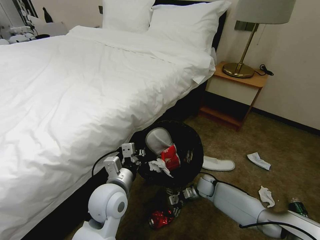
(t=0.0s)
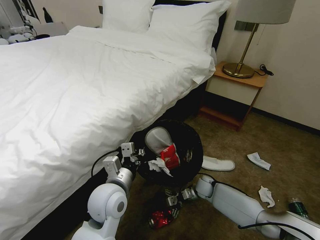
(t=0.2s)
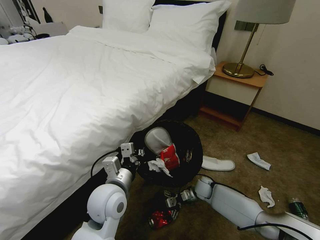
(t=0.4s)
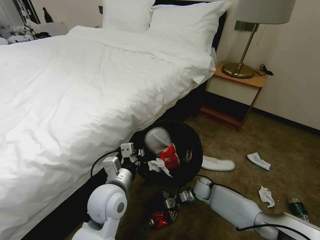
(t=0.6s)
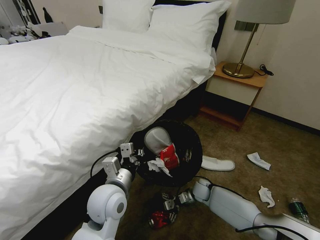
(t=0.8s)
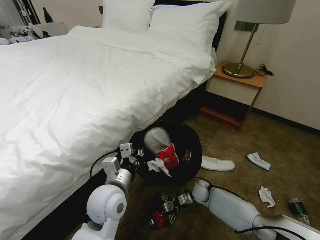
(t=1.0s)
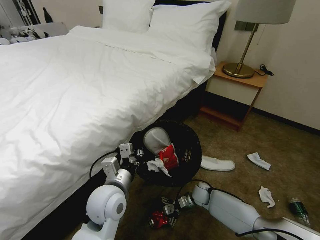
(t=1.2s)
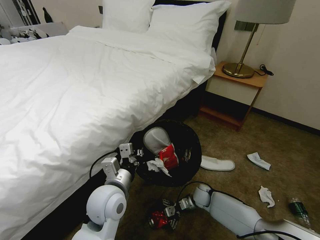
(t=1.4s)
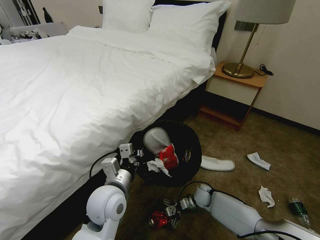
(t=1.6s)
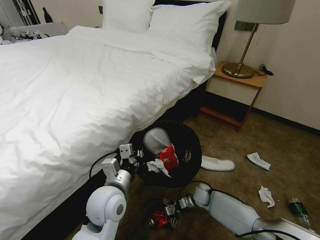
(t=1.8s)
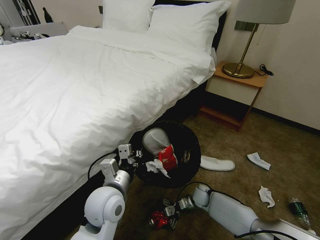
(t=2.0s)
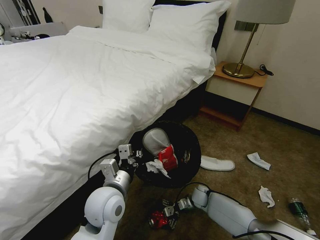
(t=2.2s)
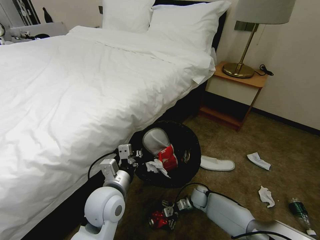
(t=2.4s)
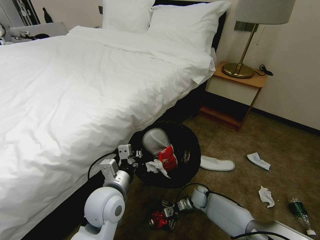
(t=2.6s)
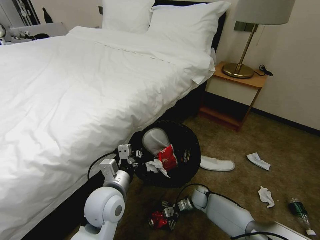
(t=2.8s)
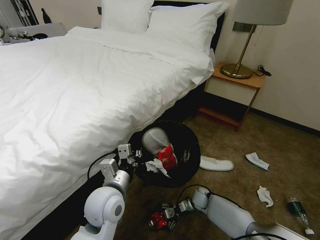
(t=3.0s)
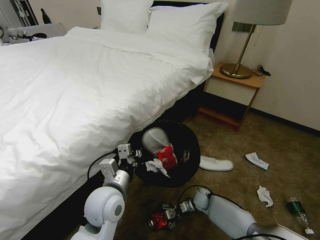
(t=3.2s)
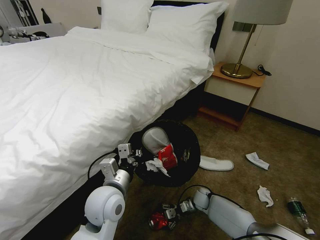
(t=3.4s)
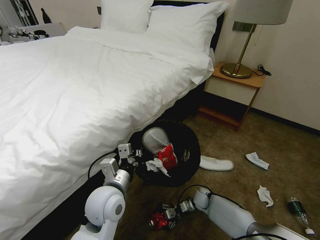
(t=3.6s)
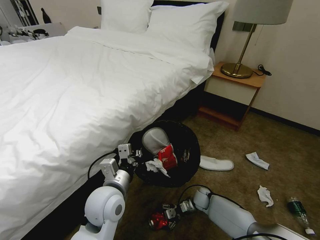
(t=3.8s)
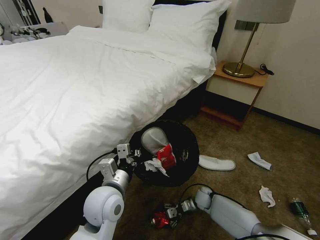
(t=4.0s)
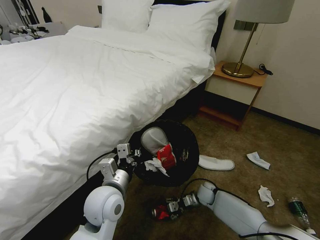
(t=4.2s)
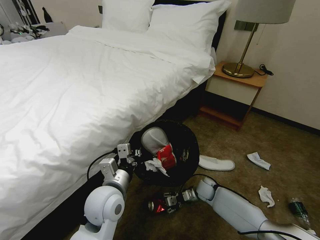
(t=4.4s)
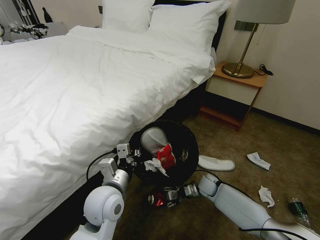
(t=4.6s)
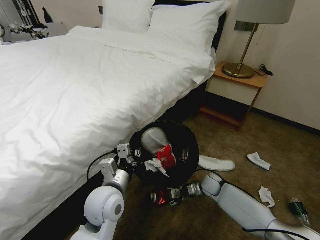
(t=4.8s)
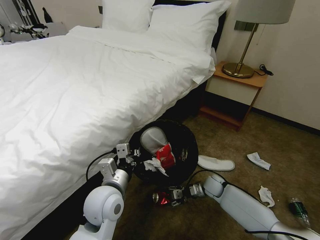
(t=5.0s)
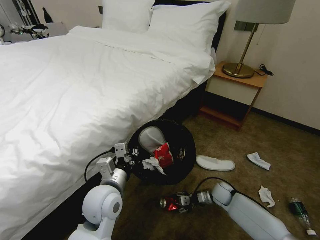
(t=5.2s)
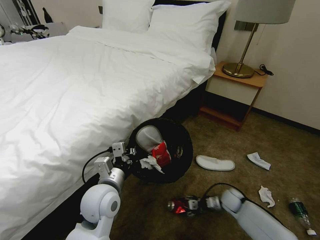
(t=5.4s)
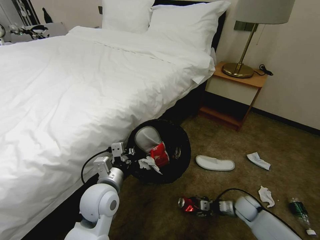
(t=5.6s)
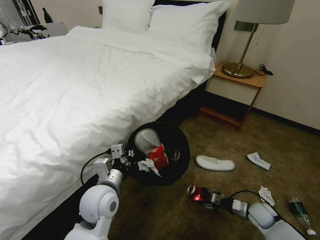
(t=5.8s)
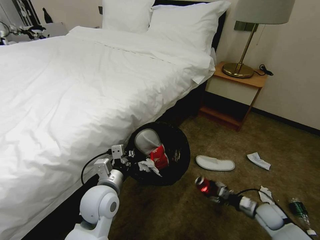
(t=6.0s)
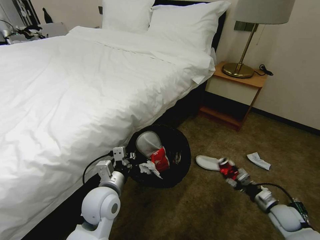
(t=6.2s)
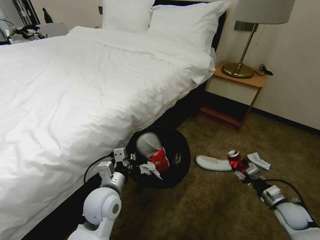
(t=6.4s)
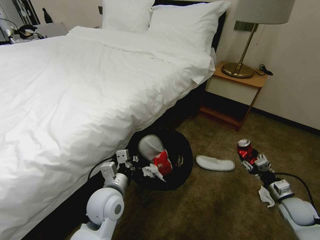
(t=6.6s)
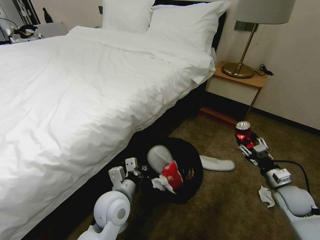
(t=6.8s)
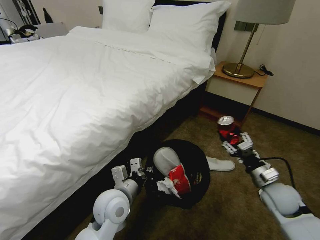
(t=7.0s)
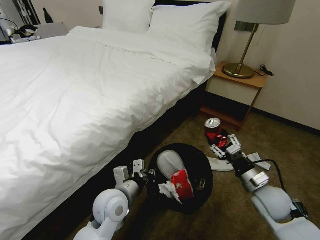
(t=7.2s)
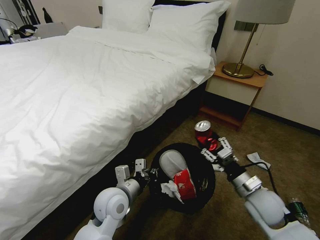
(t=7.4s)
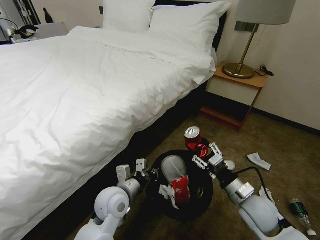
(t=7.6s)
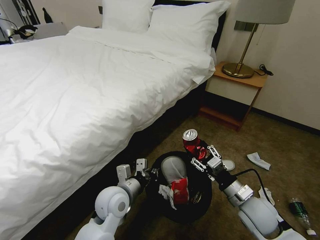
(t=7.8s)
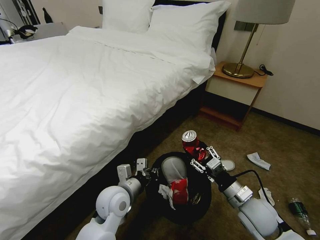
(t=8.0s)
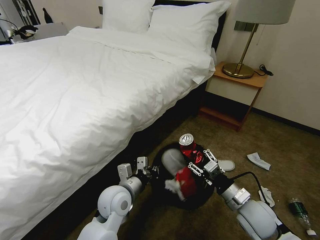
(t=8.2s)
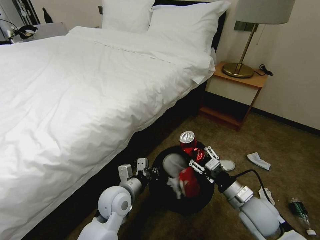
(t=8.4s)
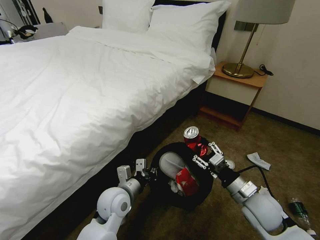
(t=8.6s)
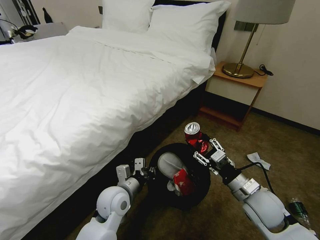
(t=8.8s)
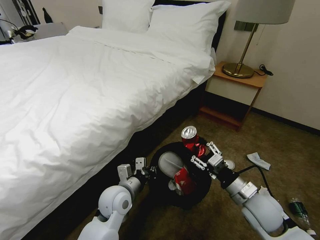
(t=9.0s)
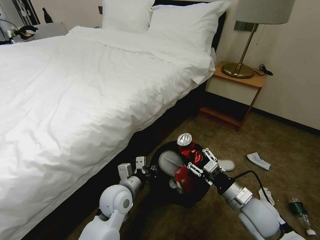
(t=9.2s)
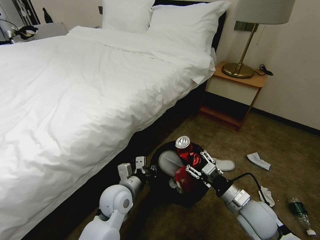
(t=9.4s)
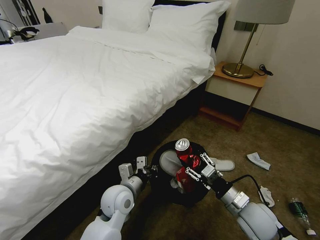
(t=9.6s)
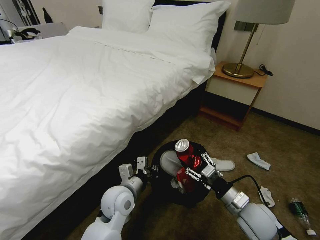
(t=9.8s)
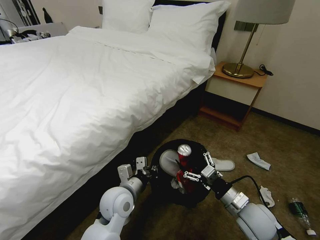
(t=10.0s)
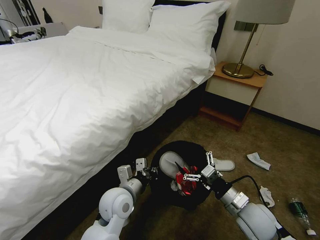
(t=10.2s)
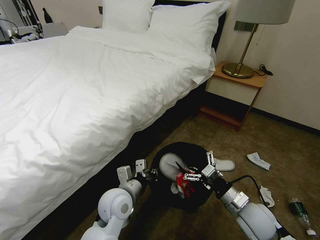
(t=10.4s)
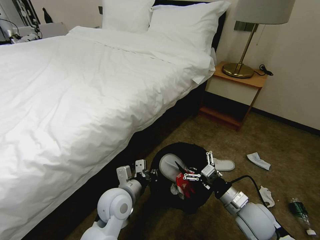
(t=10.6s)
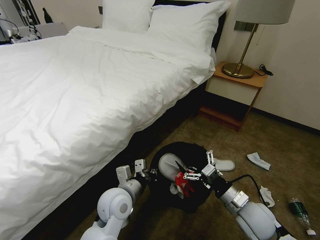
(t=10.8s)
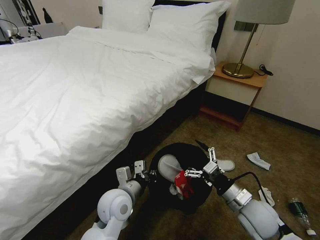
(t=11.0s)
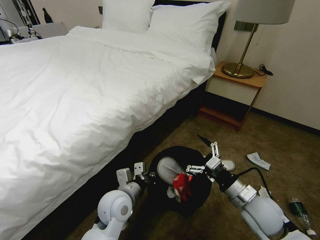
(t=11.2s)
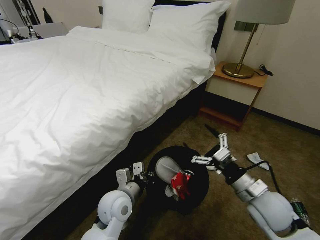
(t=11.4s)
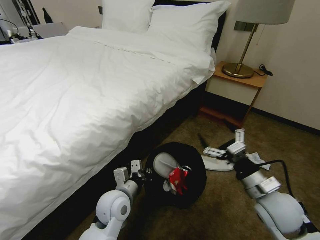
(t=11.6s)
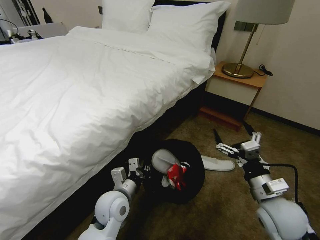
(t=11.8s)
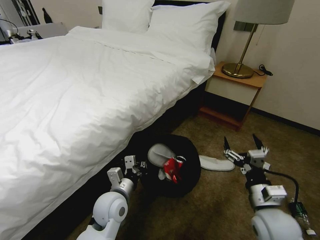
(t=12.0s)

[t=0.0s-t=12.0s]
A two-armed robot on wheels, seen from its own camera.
Task of the whole recording: Pick up the trash bin, then pick up the garbage on the floor and place it into the trash bin.
t=0.0s to t=1.6s: The grippers make only small movements.
t=1.6s to t=3.0s: The grippers make only small movements.
t=3.0s to t=4.4s: The right gripper moves upward, roughly 5 cm.
t=4.4s to t=6.0s: The right gripper is displaced to the right and backward by approximately 25 cm.
t=6.0s to t=7.6s: The right gripper goes approximately 20 cm upward and to the left.
t=7.6s to t=9.0s: The grippers move only a little.
t=9.0s to t=10.4s: The right gripper opens its fingers.

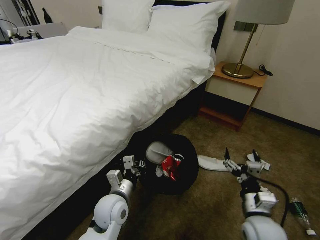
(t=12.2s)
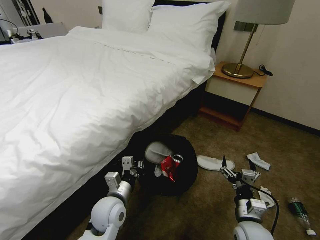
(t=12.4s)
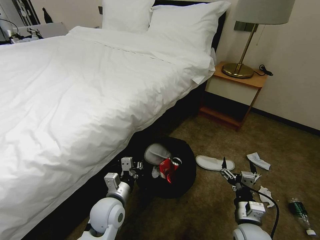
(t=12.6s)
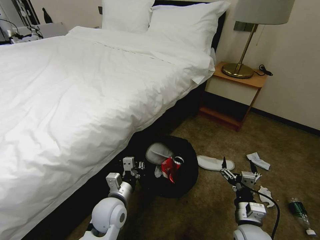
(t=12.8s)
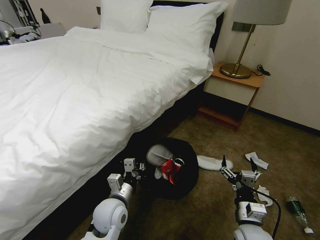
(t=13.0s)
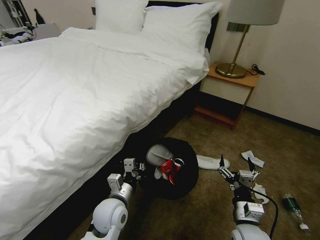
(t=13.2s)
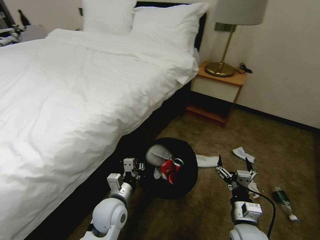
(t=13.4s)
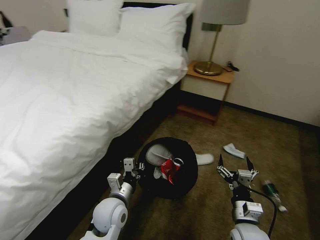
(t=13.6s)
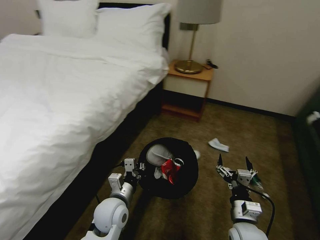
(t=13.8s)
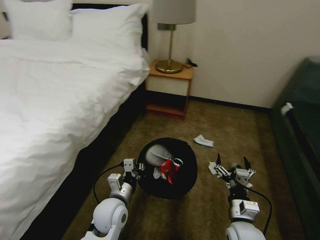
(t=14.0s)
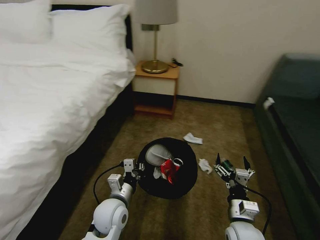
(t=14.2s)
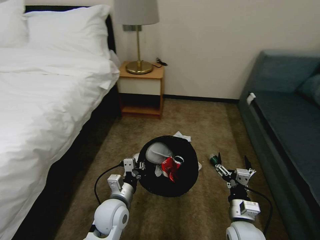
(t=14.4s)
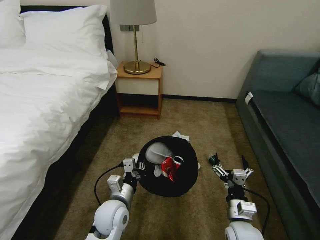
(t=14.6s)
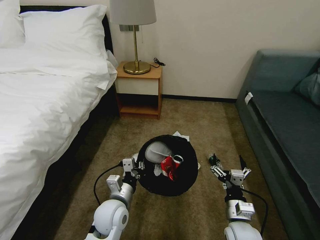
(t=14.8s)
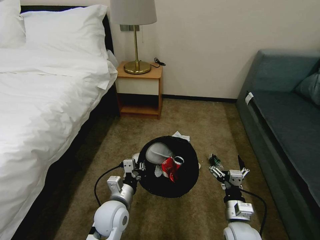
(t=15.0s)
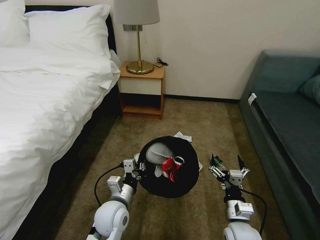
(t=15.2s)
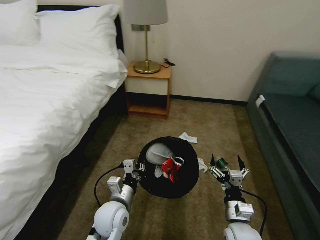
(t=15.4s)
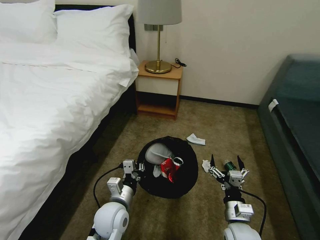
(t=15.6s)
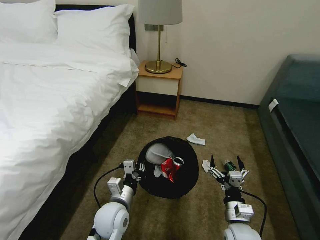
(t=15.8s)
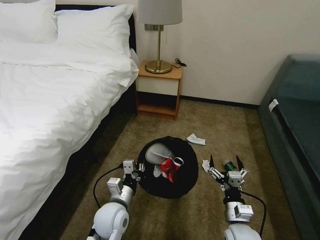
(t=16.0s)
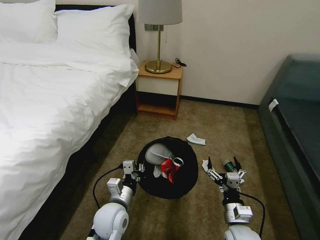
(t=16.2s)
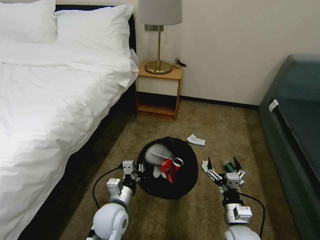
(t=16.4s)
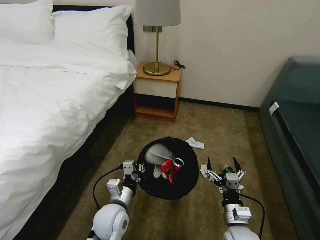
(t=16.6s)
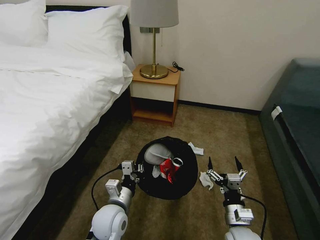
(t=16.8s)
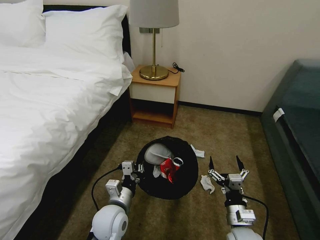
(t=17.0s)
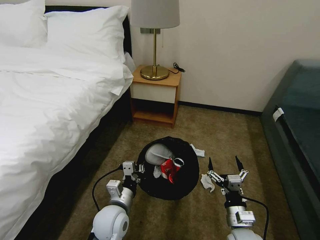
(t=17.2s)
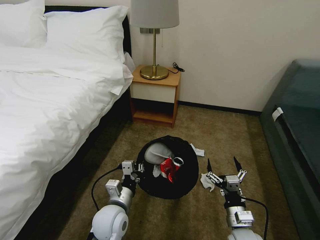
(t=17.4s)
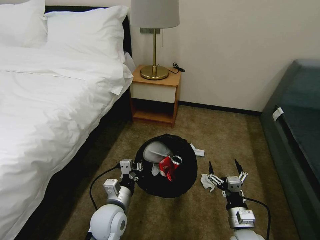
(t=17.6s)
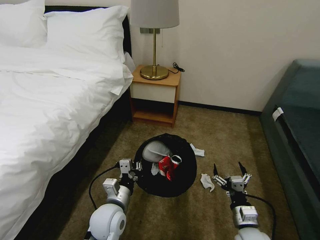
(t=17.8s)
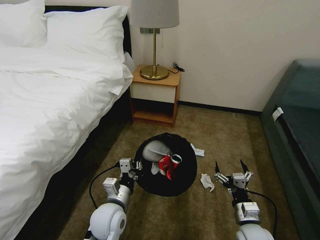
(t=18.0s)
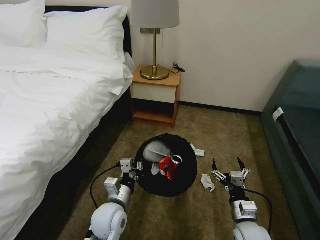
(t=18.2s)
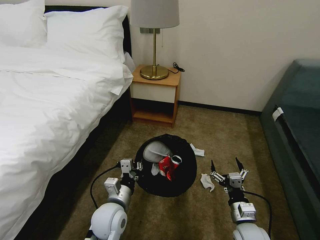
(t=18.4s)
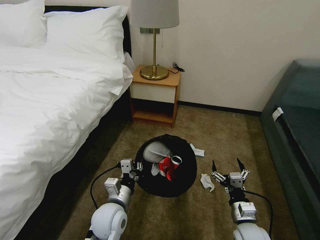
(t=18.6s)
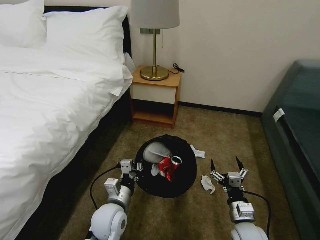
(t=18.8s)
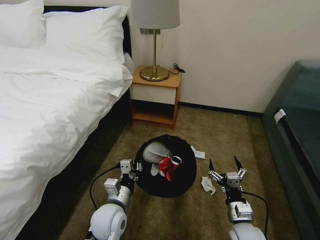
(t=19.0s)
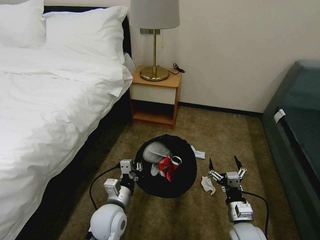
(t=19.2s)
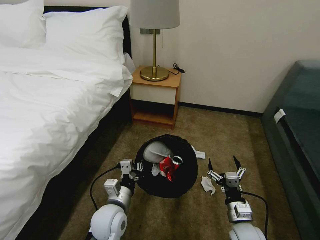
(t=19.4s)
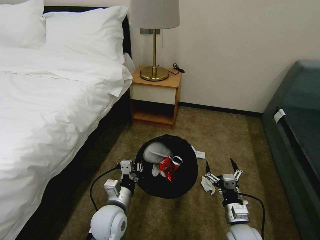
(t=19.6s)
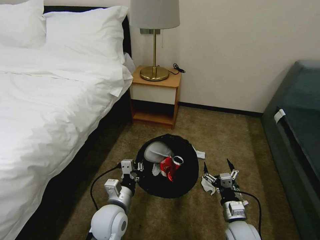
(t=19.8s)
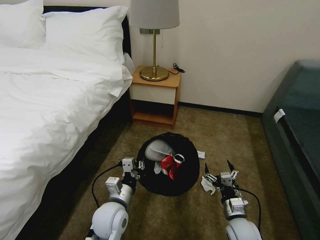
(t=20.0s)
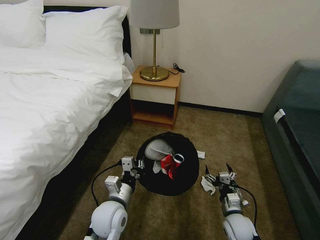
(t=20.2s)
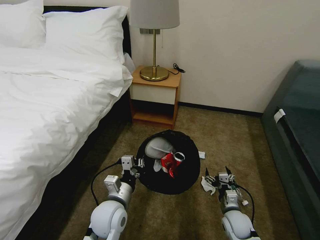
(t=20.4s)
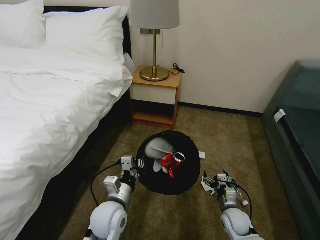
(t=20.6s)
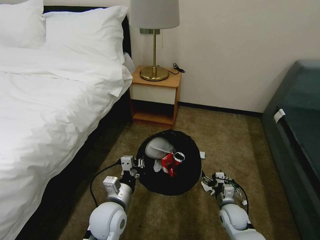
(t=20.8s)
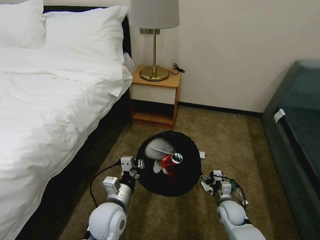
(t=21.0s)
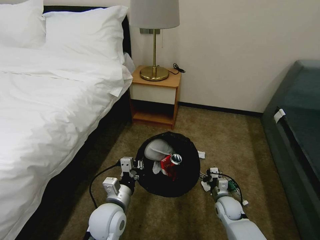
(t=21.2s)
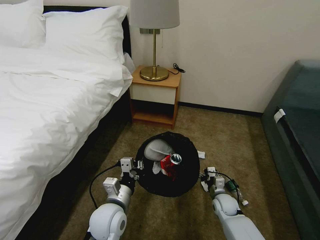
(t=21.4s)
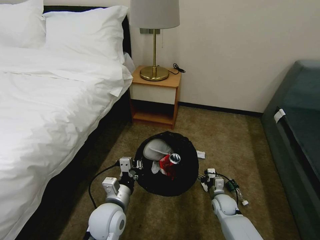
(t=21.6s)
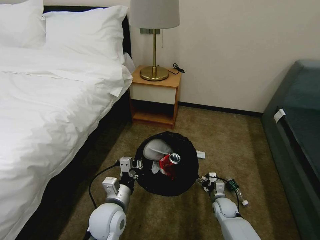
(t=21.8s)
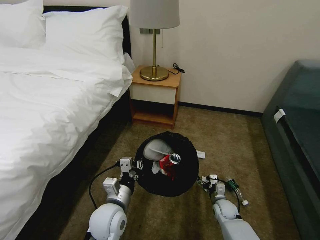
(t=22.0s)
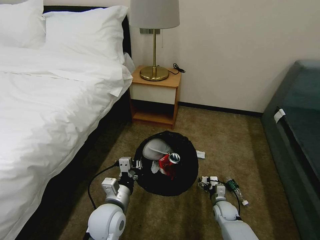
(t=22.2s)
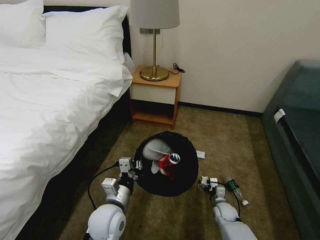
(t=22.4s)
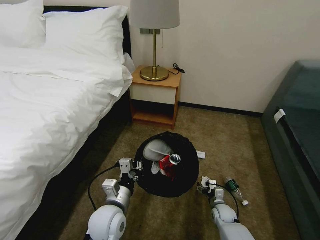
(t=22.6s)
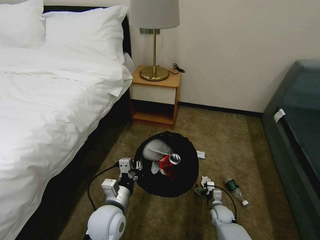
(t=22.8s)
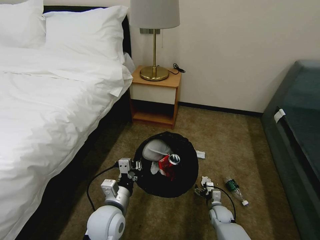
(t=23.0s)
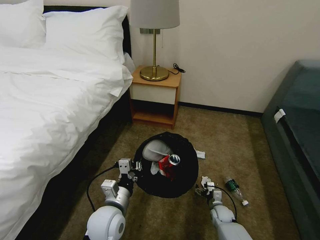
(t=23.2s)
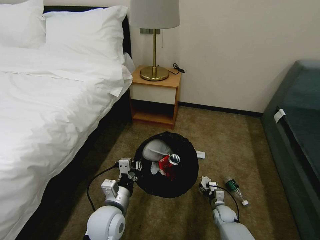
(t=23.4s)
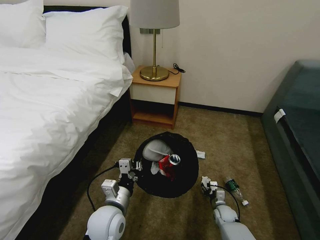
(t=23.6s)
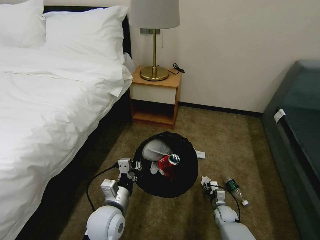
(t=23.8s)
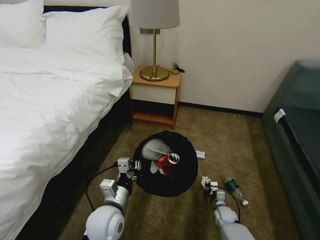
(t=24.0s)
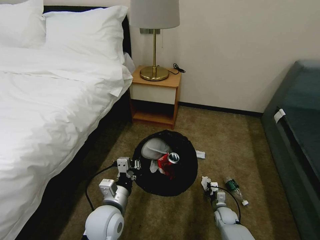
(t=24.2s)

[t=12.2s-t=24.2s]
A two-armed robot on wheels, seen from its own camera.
Task of the whole recording: Pick up the trash bin, then pick up the garbage on the floor and place it into the trash bin.
t=16.6s to t=19.8s: The grippers stay close to where they were, moving slightly.
t=19.8s to t=21.2s: The right gripper shifts roughly 10 cm forward and downward.
t=21.2s to t=22.6s: The right gripper moves downward, roughly 10 cm.
t=22.6s to t=24.2s: The right gripper closes up.
